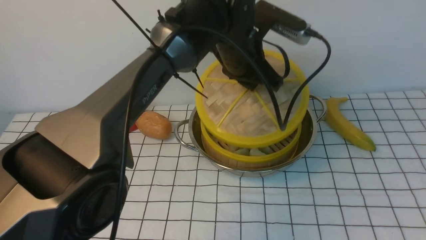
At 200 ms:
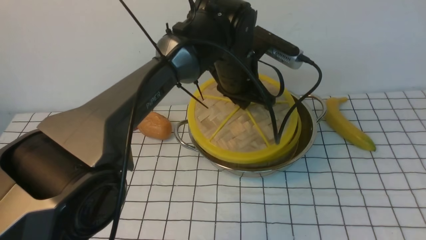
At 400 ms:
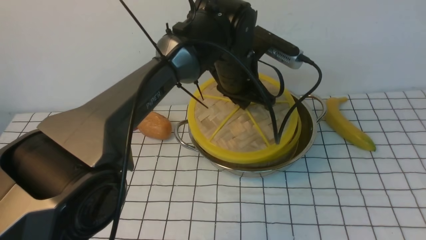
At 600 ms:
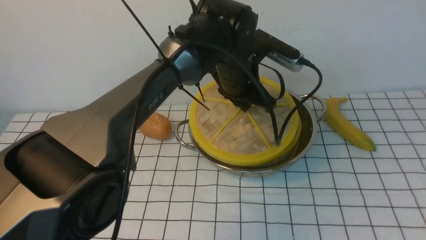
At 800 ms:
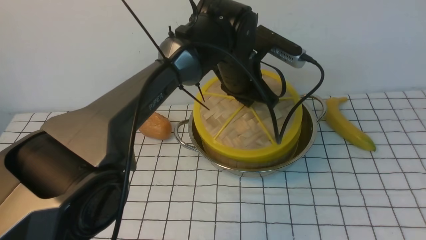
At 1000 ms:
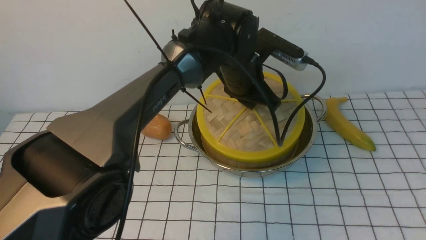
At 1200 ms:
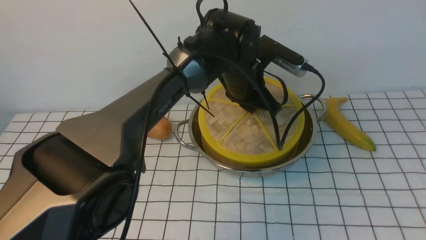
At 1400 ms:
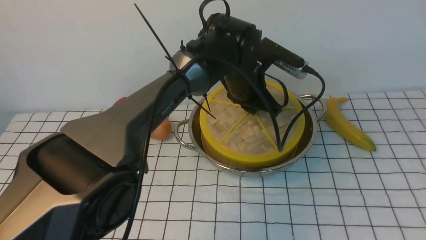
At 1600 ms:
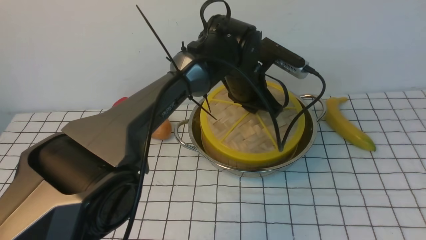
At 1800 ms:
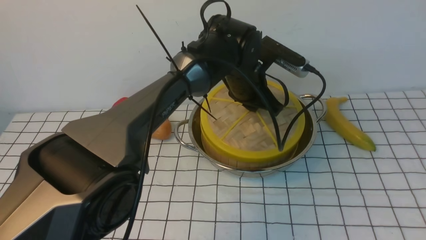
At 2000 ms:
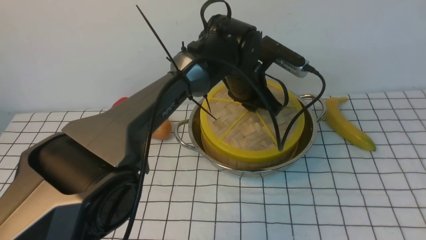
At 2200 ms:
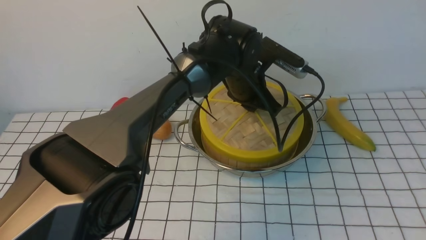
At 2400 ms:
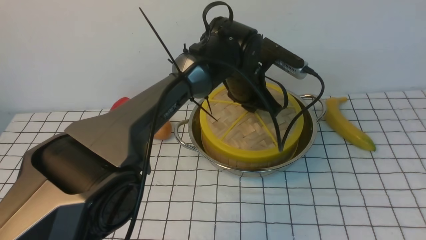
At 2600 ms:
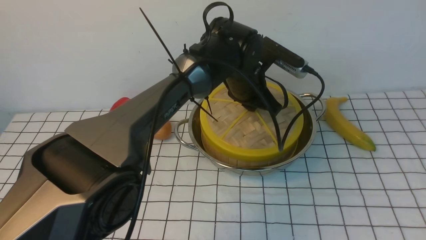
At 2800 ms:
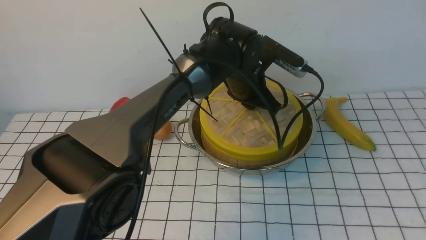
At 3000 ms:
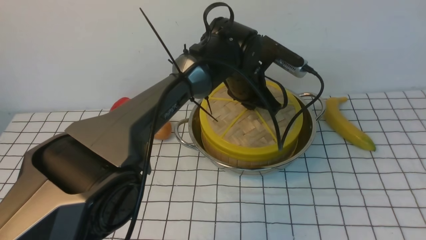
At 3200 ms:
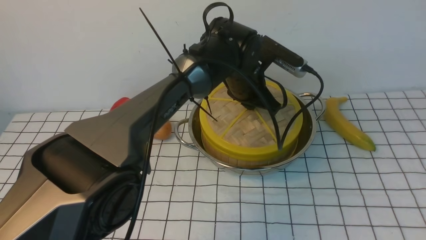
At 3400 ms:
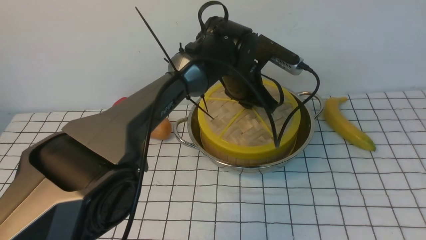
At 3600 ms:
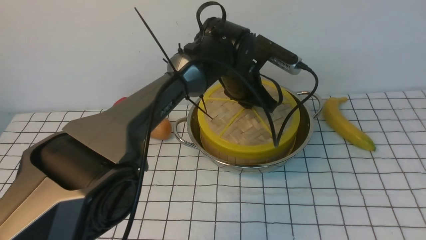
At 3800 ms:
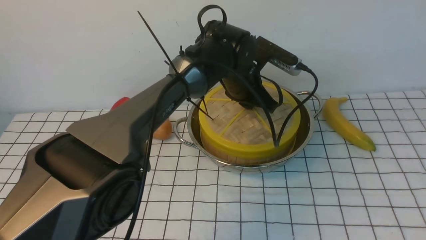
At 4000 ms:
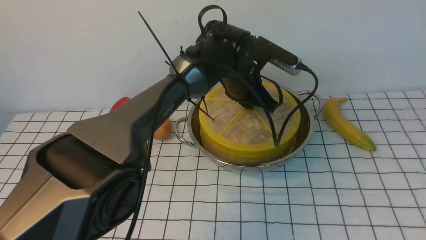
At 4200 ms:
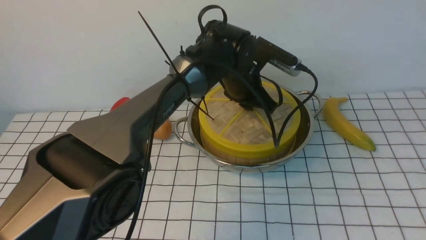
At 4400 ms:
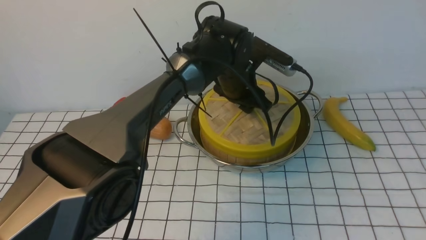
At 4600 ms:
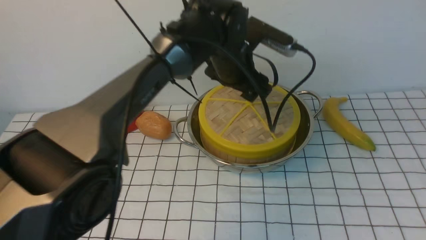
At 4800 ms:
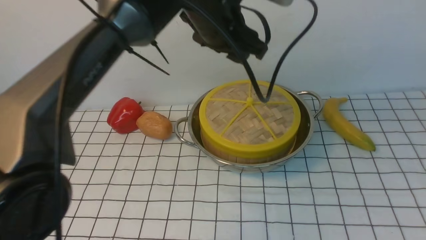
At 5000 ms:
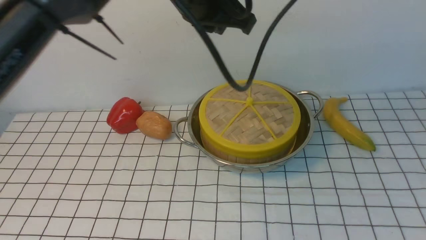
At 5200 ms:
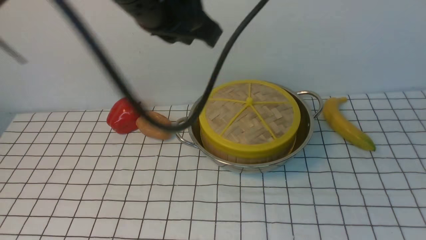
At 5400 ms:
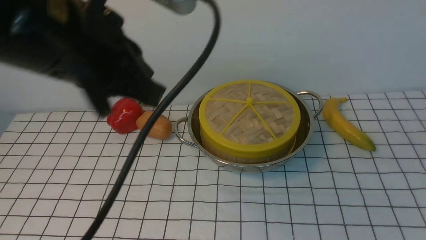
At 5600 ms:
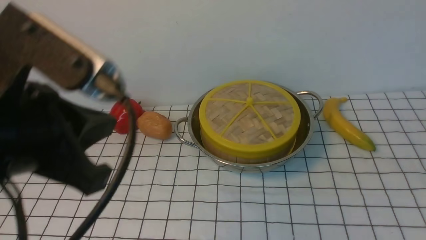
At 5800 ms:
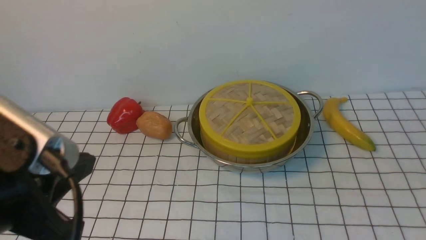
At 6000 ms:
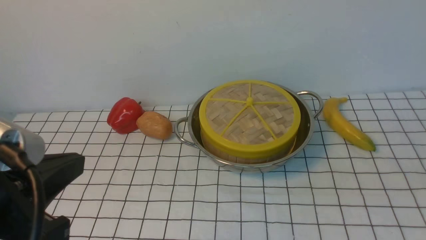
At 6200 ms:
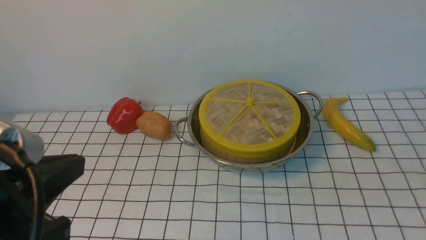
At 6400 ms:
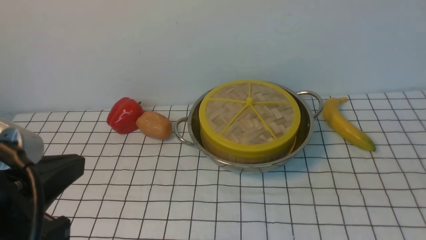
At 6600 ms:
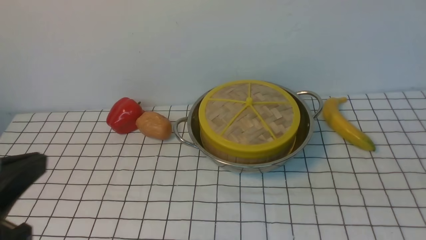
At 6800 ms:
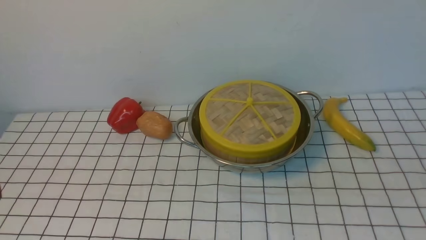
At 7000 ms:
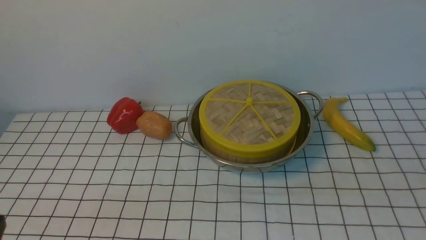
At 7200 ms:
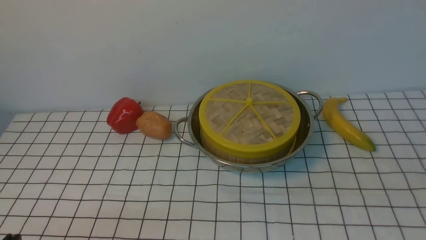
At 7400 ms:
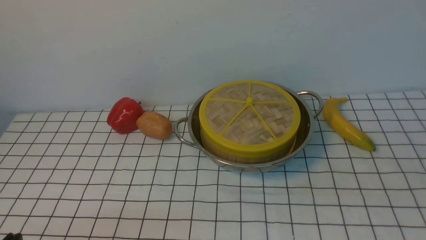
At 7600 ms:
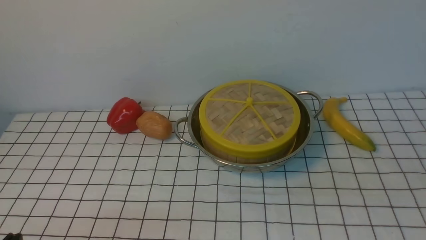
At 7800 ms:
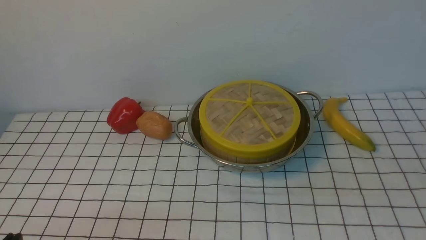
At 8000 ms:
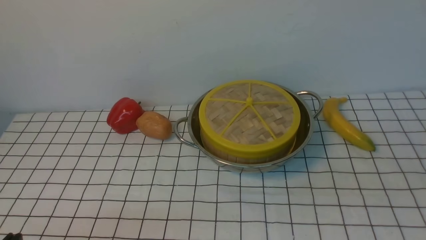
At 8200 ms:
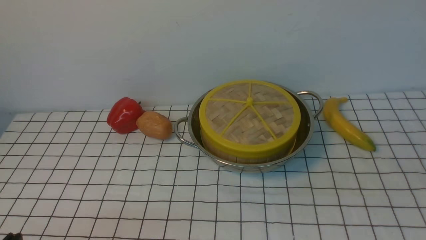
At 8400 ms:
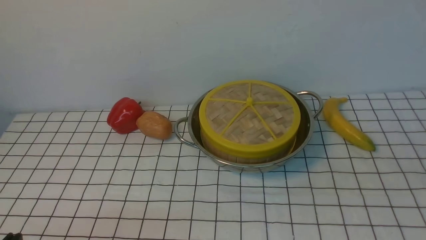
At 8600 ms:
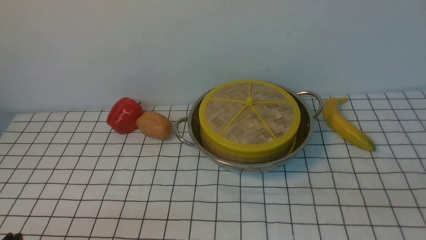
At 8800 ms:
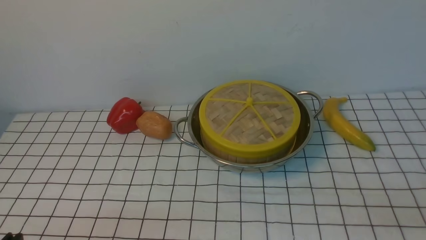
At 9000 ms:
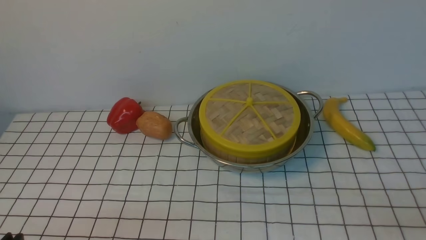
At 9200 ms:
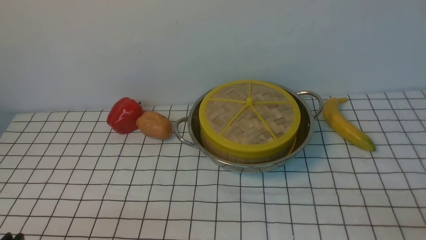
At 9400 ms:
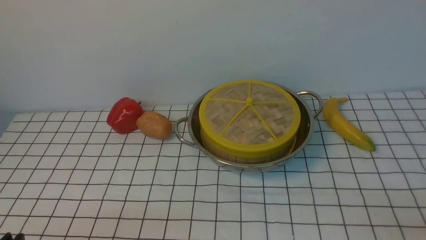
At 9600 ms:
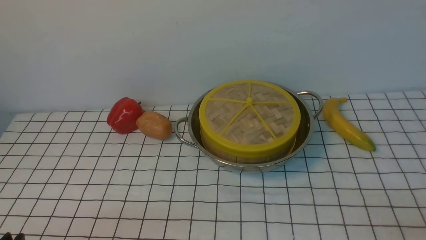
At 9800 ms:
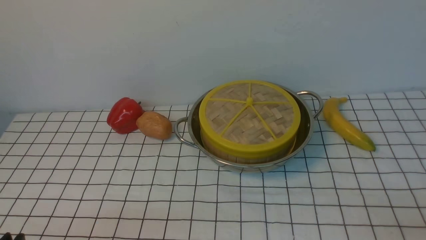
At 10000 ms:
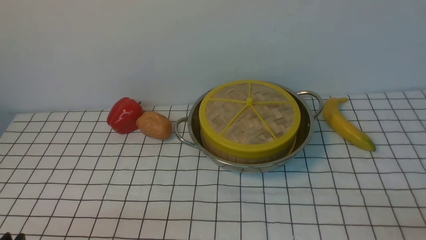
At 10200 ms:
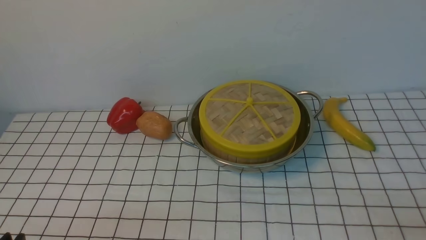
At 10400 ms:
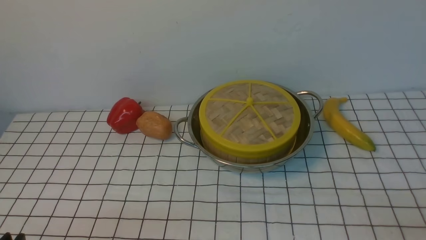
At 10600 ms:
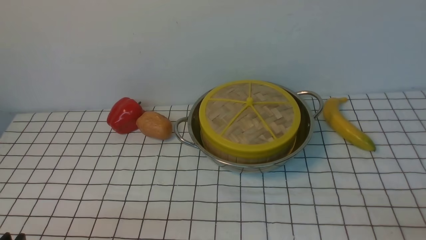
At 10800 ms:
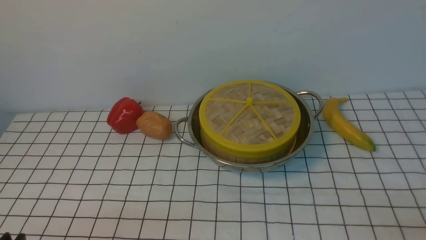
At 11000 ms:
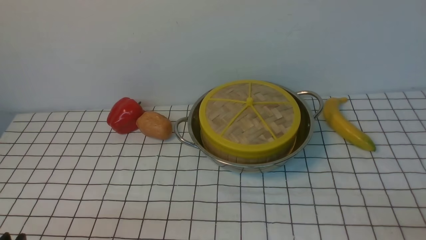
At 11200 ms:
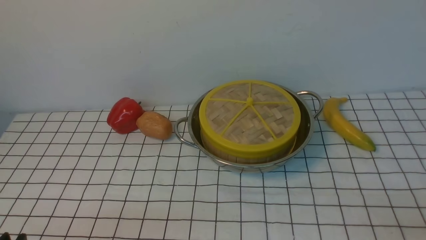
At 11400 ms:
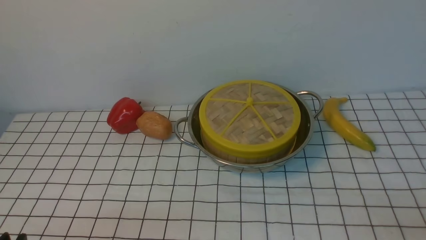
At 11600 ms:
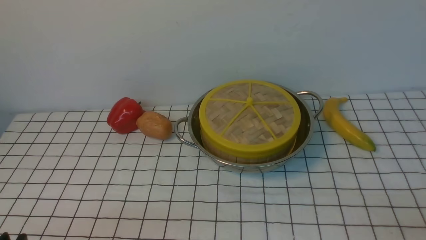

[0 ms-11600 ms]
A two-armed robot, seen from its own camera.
Task of the whole recording: place the steamer in the pot on the white tablecloth, and put the lid on the steamer.
Step, 0 ms to 4600 ms: use the left arm to place the steamer lid on the steamer.
0 ms to 1400 ms: The left gripper moves downward, about 5 cm.
1400 ms to 2800 ms: Neither gripper changes place.
2800 ms to 4400 ms: The left gripper opens.
4400 ms to 5800 ms: The right gripper heads downward and backward, covering roughly 15 cm, and closes, while the left gripper travels backward and to the left by some 40 cm, and closes its fingers.
5800 ms to 7200 ms: The left gripper moves downward and to the left, some 20 cm.
10200 ms to 11600 ms: Both grippers stay about where they are.

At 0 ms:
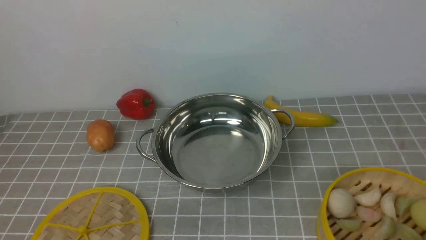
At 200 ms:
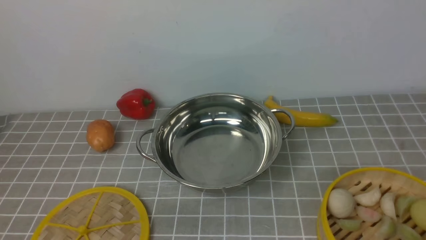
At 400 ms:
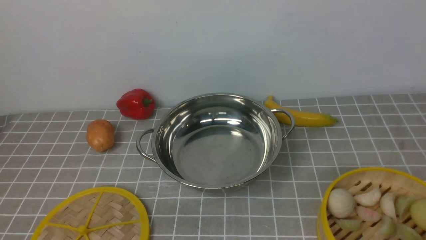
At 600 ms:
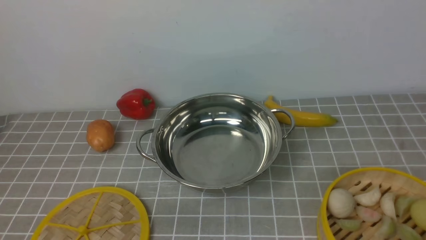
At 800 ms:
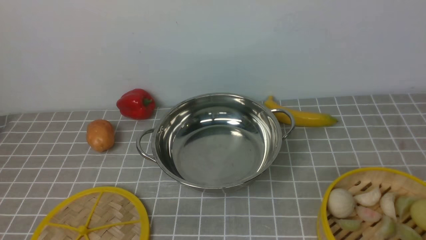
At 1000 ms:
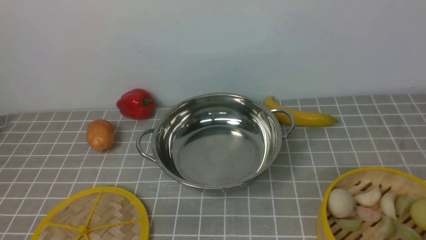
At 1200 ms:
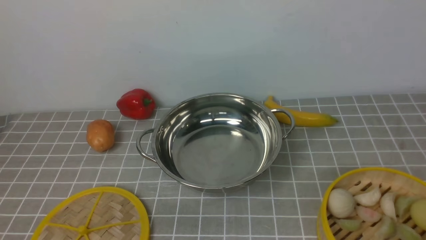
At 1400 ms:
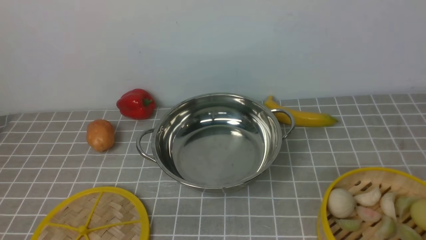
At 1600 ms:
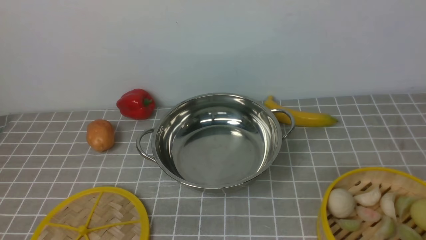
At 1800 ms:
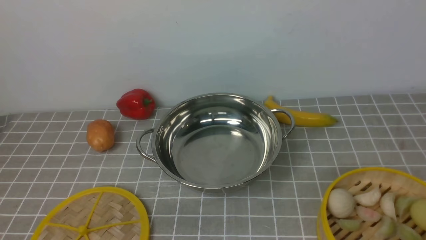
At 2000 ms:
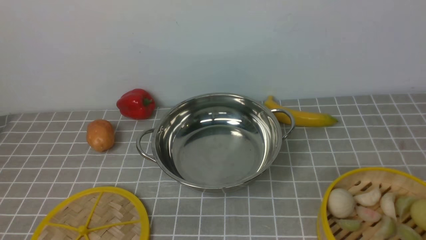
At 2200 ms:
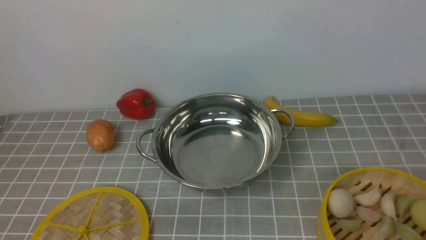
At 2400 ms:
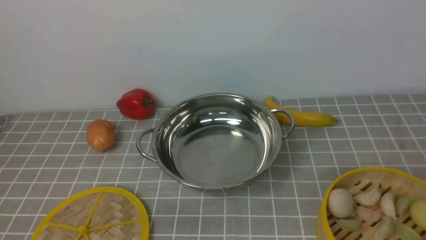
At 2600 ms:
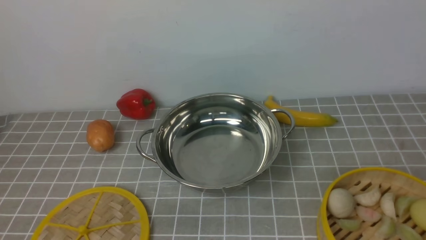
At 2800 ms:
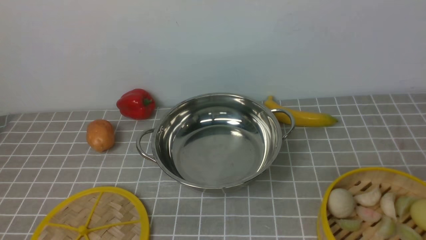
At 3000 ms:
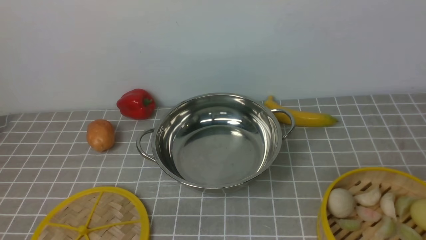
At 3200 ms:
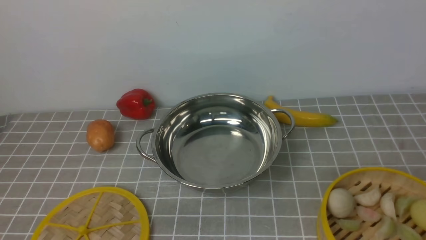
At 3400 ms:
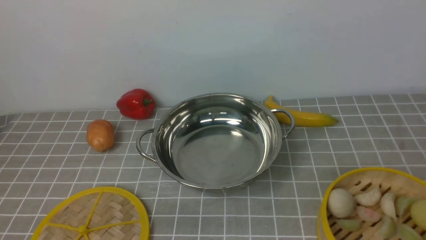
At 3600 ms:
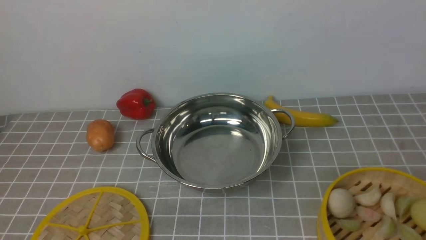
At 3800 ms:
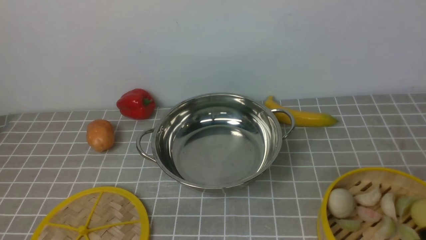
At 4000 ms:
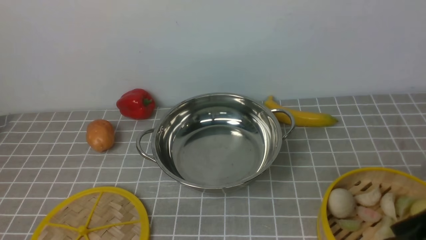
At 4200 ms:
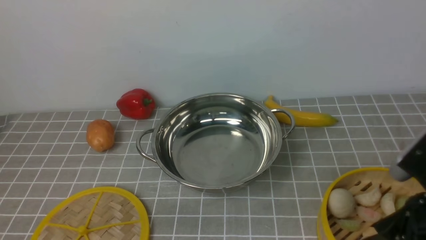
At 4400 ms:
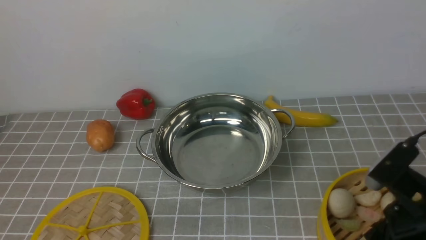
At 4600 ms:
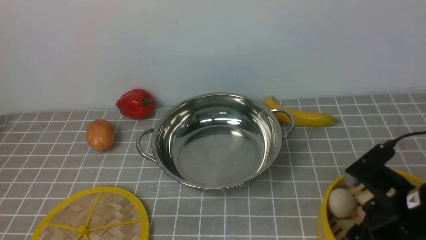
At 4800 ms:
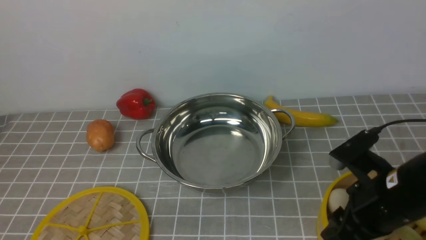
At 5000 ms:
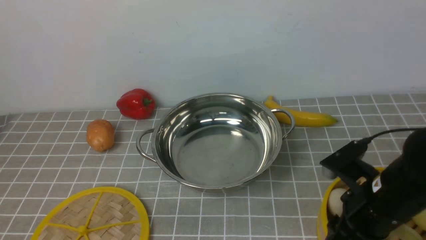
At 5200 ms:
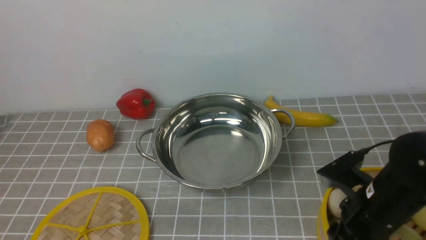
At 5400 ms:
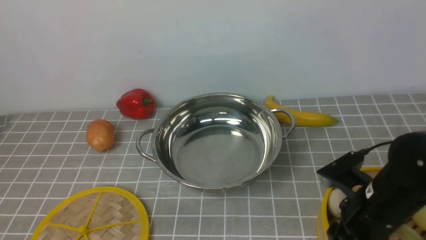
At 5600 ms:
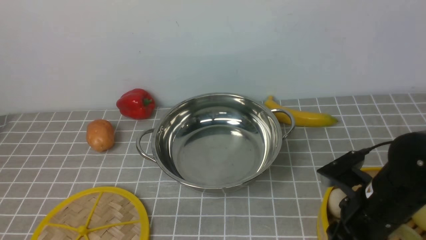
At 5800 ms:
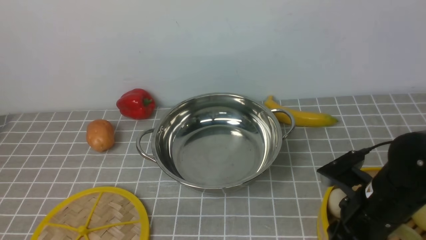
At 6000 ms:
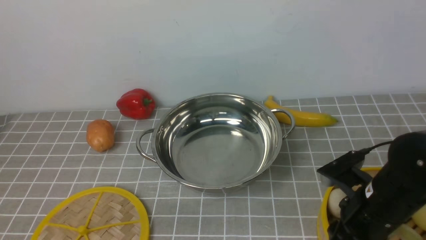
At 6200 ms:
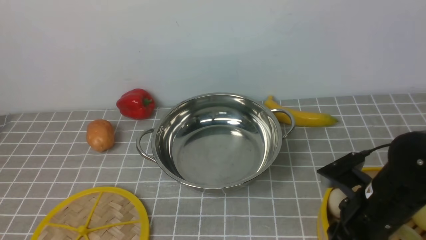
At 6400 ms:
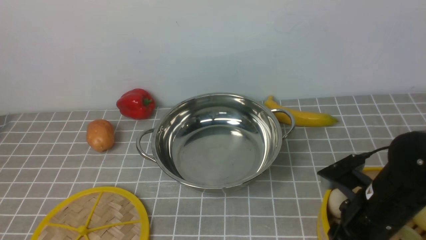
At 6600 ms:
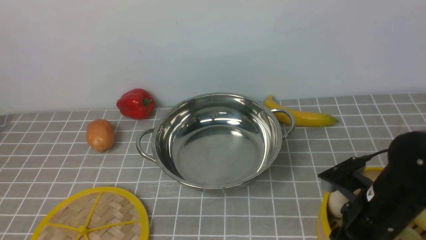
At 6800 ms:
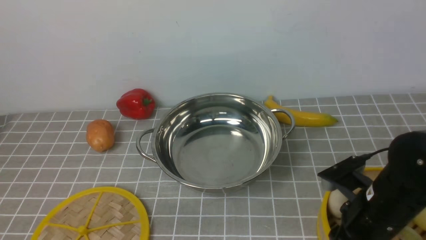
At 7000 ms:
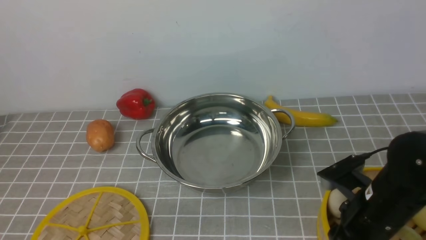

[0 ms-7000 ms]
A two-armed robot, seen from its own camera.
Task of the whole recording: place the steamer in the pot on the grey tablecloth, and put the lid on the steamer.
0 ms to 1400 ms: Both grippers stay about where they are.
2800 ms to 4200 ms: The right gripper shifts about 20 cm forward, downward and to the left.
4200 ms to 5600 ms: The right gripper goes approximately 10 cm downward and forward.
5600 ms to 7000 ms: Both grippers stay put.
